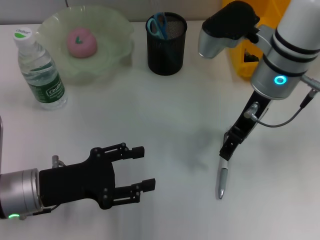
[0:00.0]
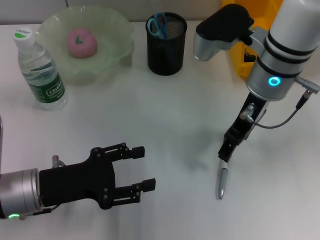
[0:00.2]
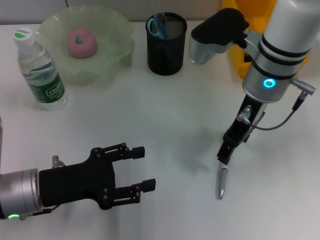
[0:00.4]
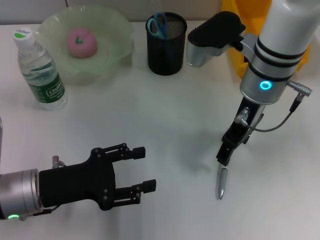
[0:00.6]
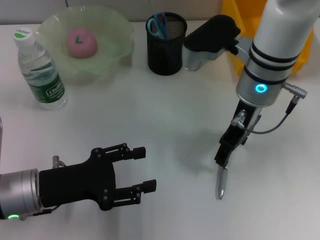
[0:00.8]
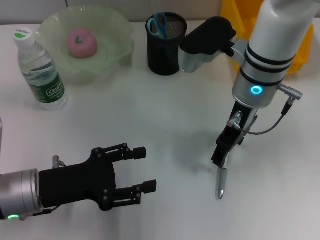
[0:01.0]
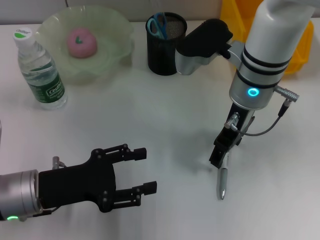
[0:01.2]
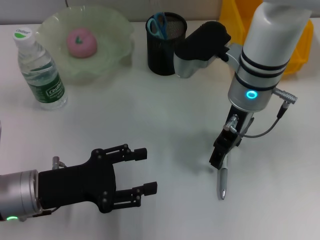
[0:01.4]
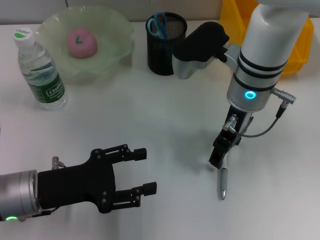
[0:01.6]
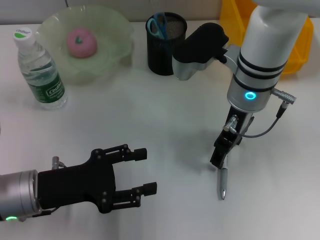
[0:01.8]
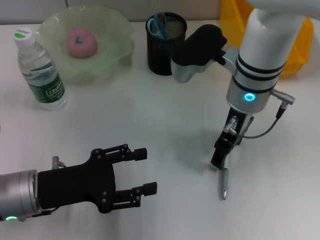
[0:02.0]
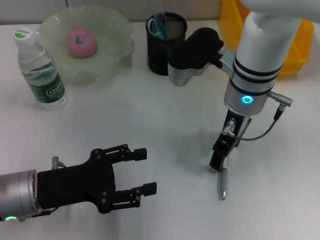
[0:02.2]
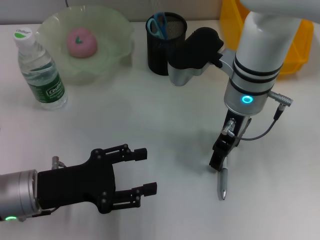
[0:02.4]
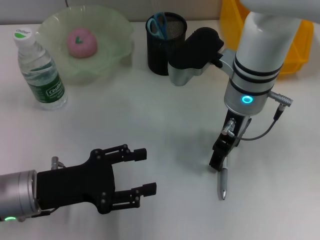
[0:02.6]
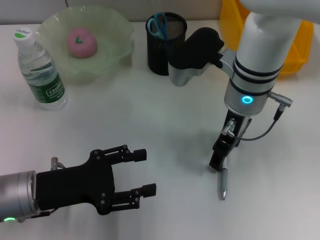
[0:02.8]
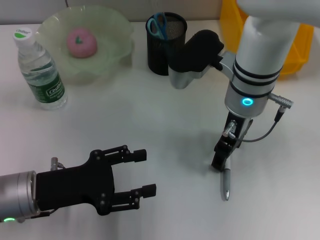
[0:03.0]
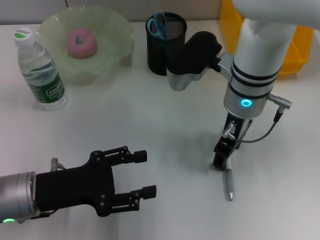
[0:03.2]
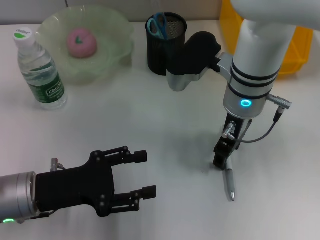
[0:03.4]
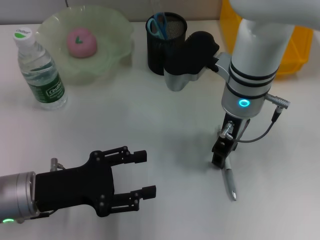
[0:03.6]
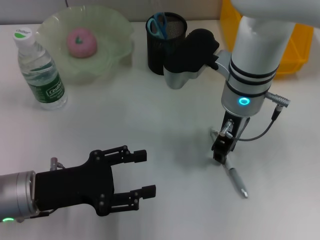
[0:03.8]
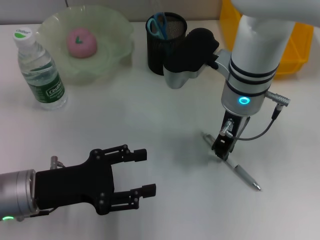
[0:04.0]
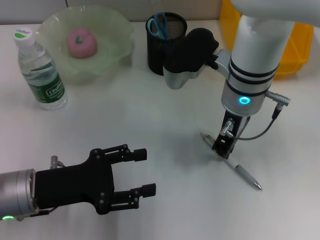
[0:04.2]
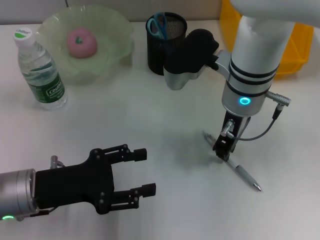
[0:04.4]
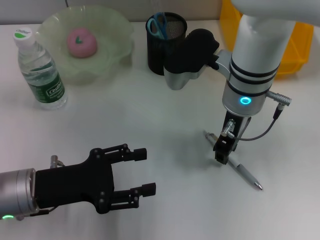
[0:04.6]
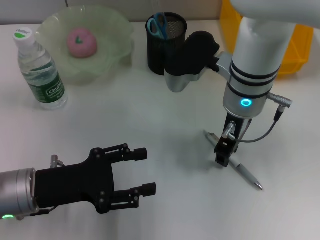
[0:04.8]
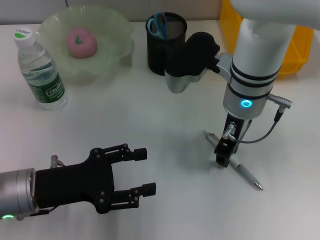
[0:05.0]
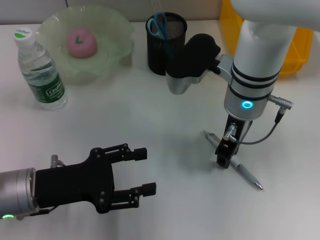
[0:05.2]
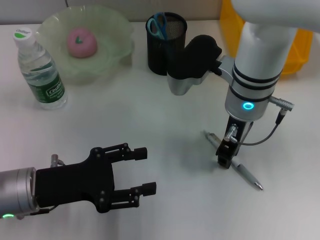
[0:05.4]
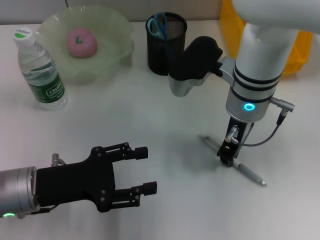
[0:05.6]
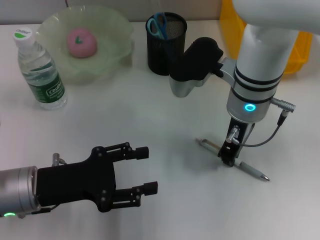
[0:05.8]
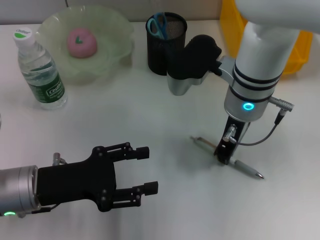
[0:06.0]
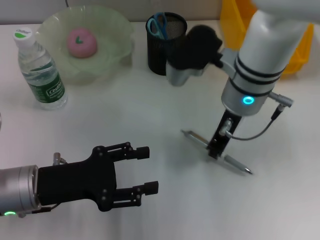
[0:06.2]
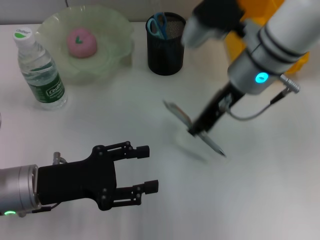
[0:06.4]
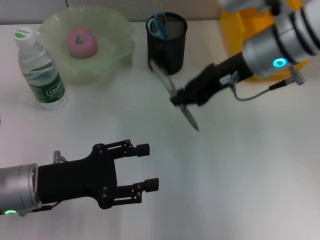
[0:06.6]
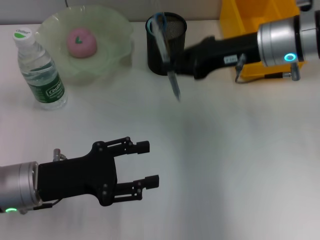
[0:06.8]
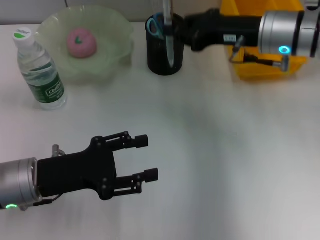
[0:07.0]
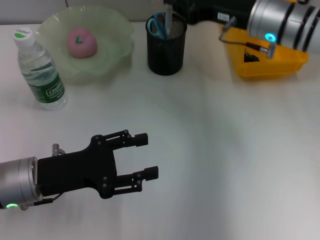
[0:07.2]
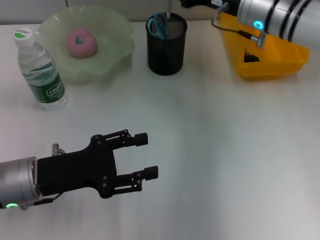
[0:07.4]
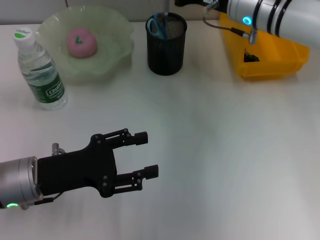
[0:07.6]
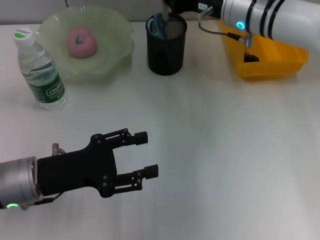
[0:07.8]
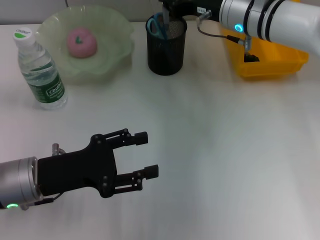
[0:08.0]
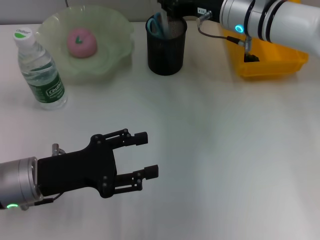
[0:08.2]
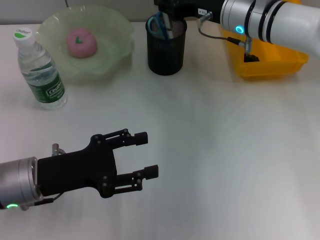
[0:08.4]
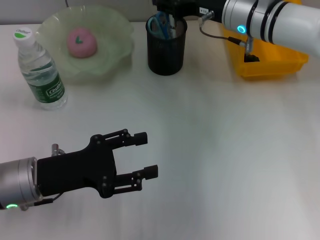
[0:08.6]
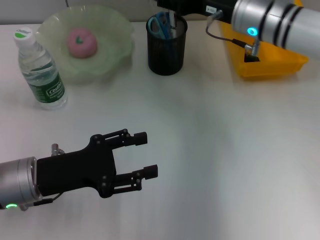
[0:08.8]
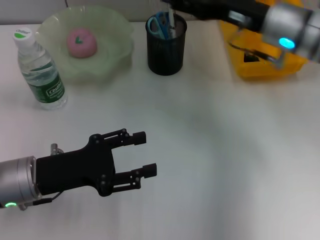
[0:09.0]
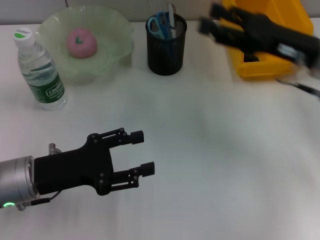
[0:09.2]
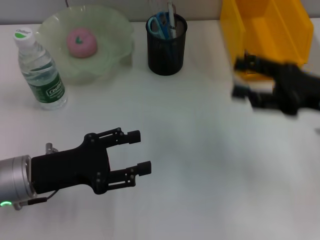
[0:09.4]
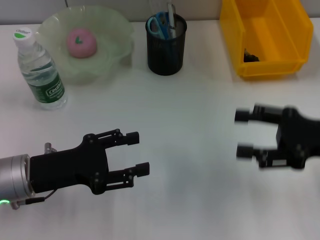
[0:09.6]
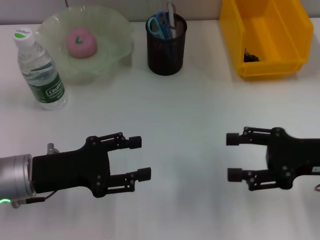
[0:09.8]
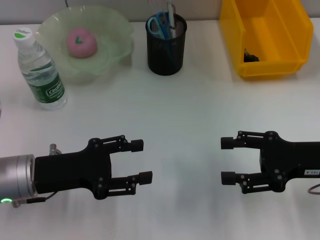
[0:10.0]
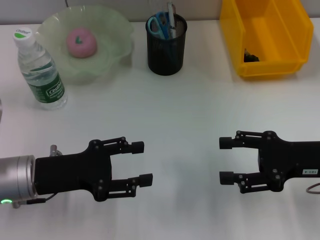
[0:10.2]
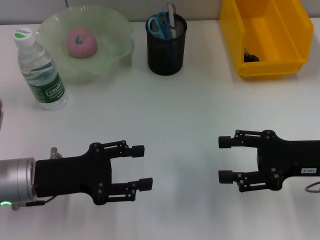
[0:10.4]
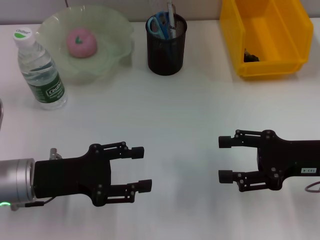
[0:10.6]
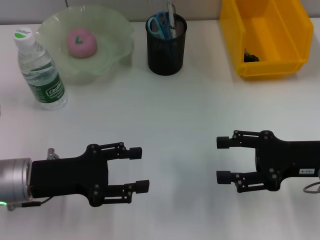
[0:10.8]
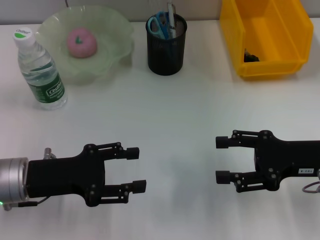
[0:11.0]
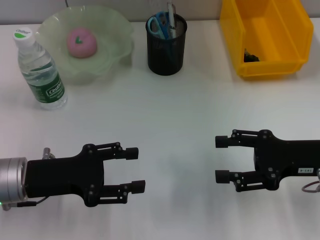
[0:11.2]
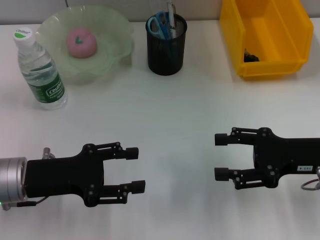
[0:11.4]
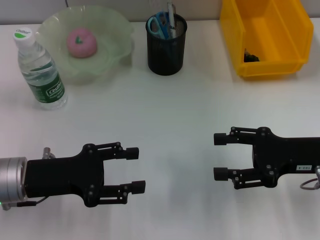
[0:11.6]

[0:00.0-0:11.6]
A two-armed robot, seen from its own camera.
Step, 0:00.0 to 0:05.6: Grab the gray spring-action pen with the right hand.
Step, 0:06.0 to 0:08.4: Place the gray spring-action pen into the pen holder with the right hand.
0:00.0 to 0:01.4: The grippers make only small movements.
0:01.4 to 0:02.8: The two grippers keep their place.
0:02.8 to 0:04.4: The right gripper closes.
0:04.4 to 0:05.8: Both grippers stay put.
0:05.8 to 0:07.2: The right gripper moves to the right and forward, some 10 cm.
0:07.2 to 0:08.8: The right gripper opens up.
0:08.8 to 0:10.2: The right gripper heads backward and to the right, covering roughly 20 cm.
0:10.2 to 0:11.6: Both grippers stay put.
